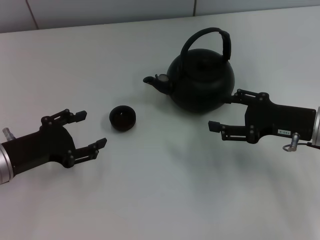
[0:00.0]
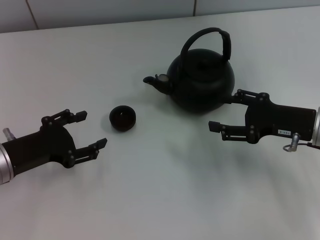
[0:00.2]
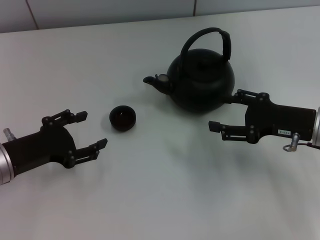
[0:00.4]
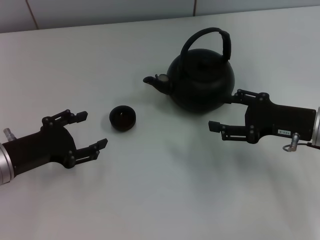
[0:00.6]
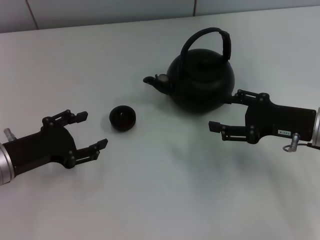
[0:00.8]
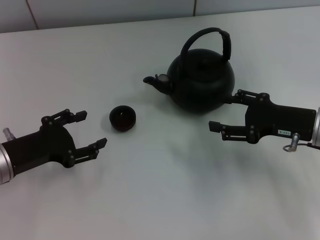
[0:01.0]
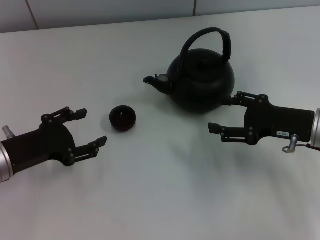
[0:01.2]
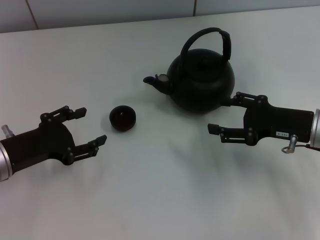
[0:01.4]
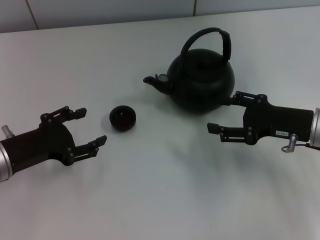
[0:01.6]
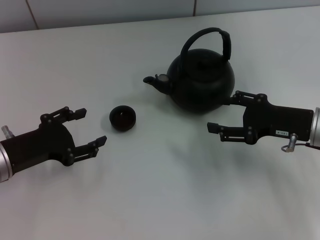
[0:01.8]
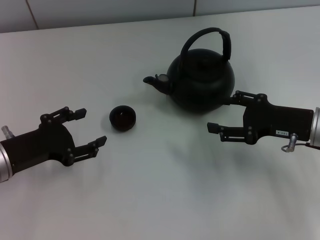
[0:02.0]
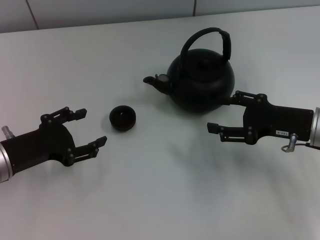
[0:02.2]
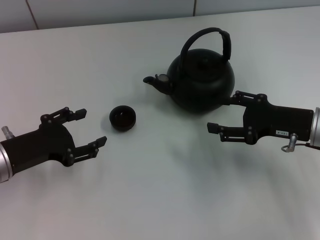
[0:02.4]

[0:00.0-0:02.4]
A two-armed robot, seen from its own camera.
Task of the whole recording: Grasp the handle of the teapot with one hand and pour tea into the teacup.
0.0 to 2.4 s: The two grippers keep their place.

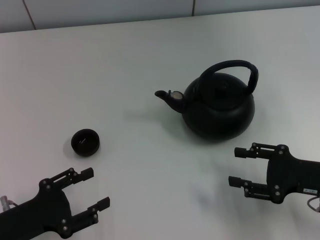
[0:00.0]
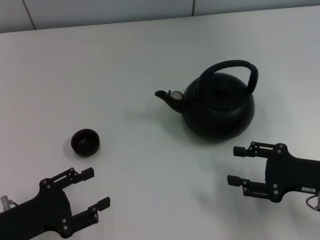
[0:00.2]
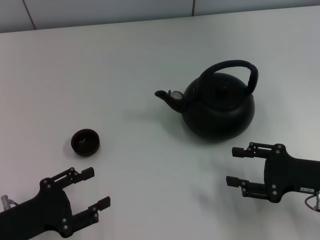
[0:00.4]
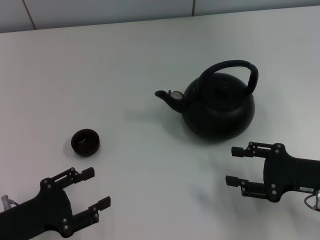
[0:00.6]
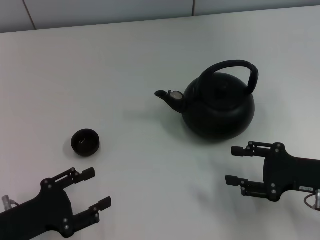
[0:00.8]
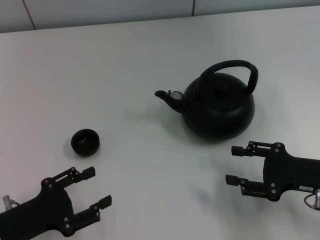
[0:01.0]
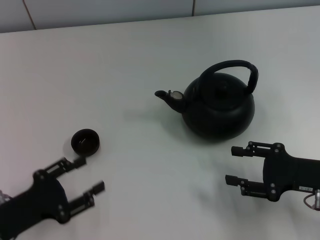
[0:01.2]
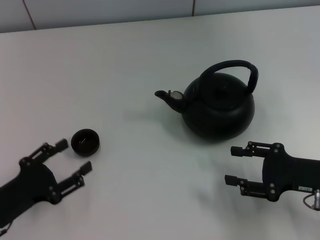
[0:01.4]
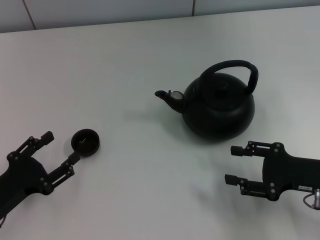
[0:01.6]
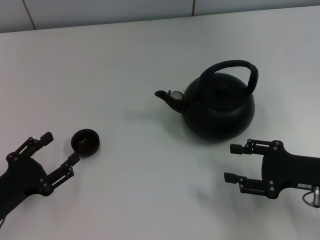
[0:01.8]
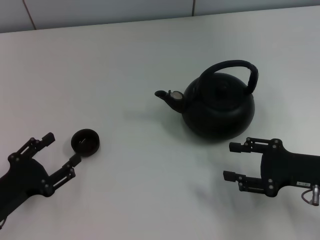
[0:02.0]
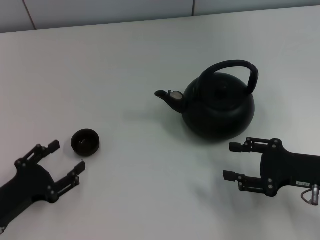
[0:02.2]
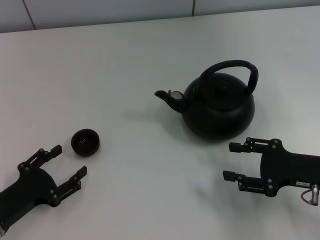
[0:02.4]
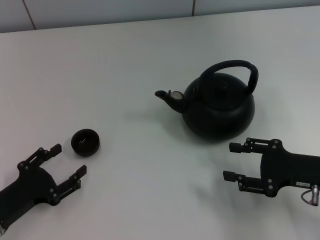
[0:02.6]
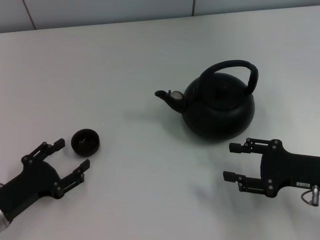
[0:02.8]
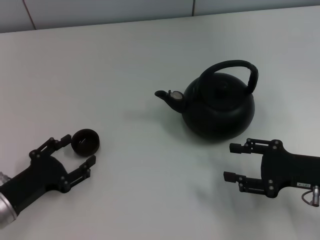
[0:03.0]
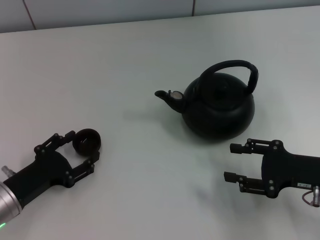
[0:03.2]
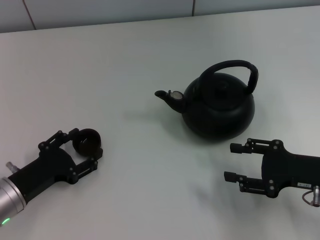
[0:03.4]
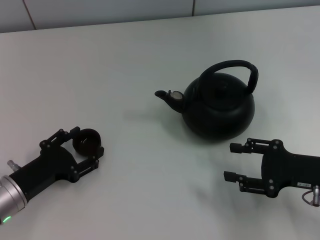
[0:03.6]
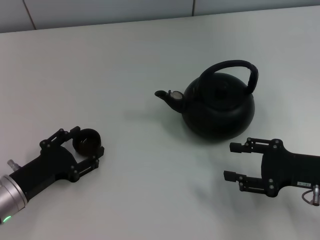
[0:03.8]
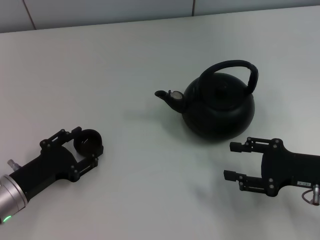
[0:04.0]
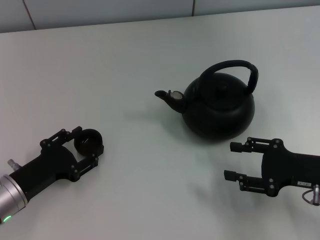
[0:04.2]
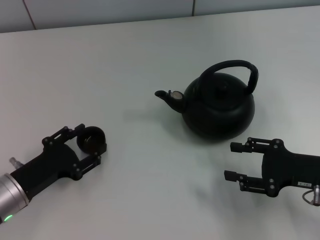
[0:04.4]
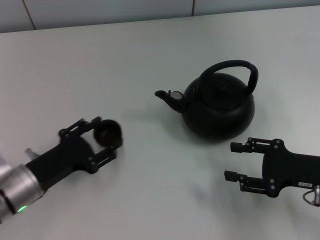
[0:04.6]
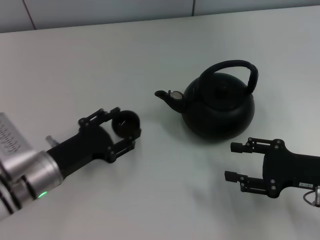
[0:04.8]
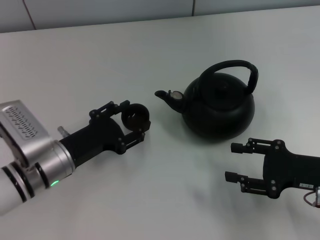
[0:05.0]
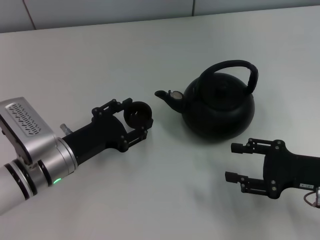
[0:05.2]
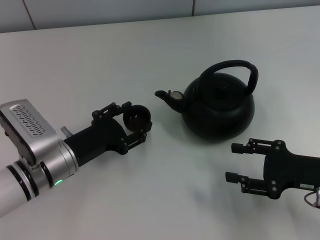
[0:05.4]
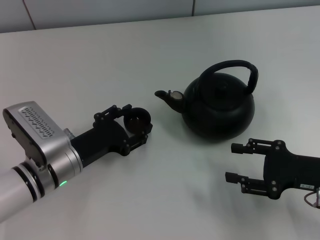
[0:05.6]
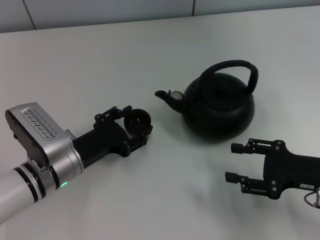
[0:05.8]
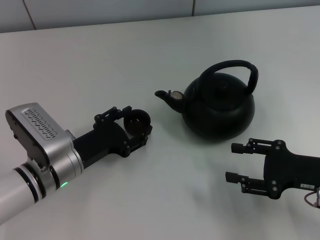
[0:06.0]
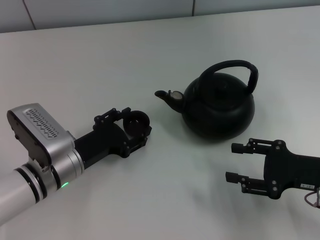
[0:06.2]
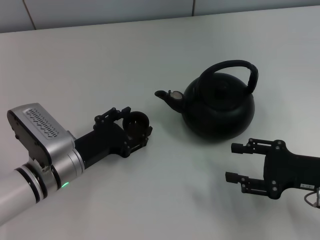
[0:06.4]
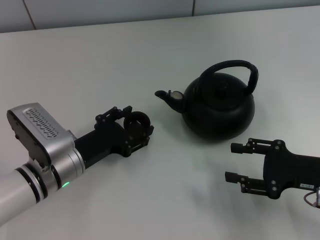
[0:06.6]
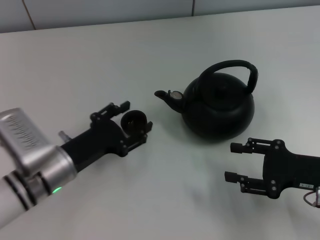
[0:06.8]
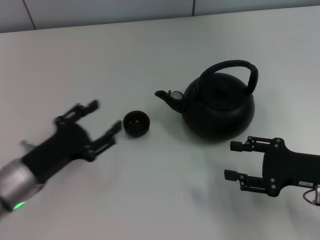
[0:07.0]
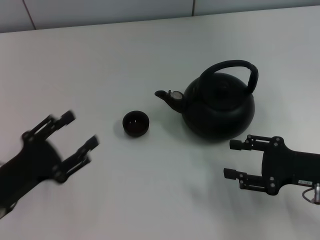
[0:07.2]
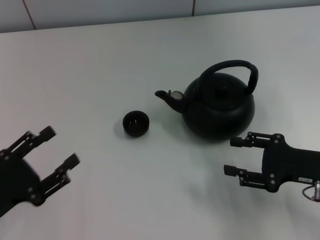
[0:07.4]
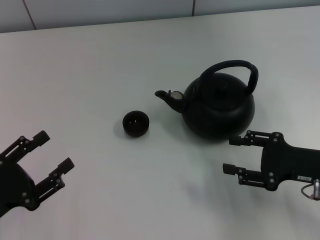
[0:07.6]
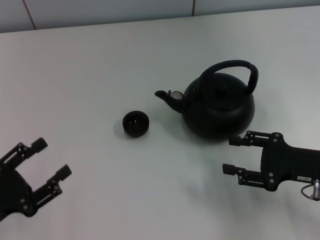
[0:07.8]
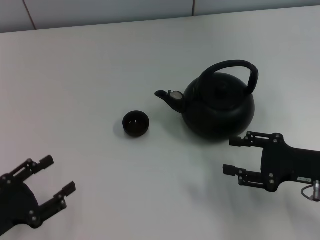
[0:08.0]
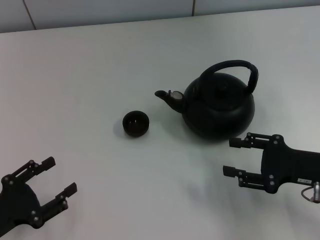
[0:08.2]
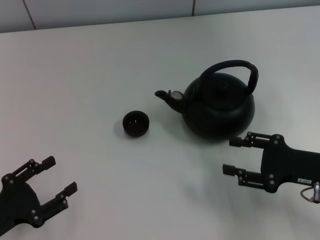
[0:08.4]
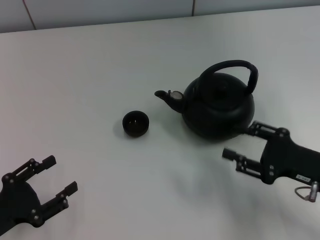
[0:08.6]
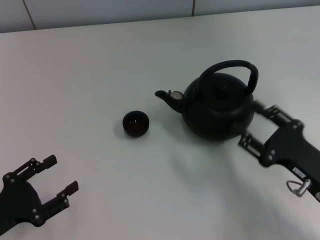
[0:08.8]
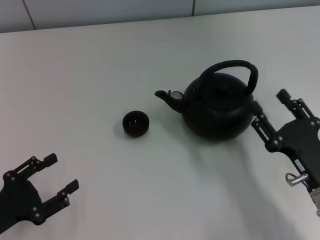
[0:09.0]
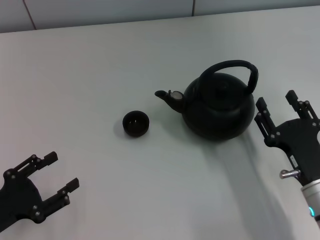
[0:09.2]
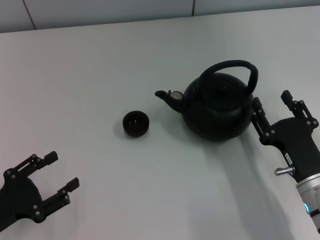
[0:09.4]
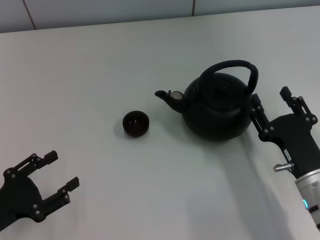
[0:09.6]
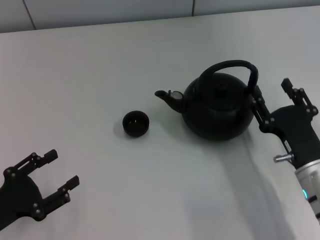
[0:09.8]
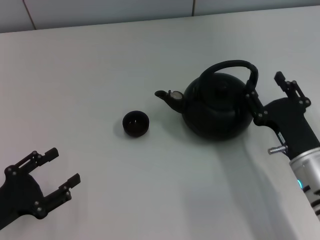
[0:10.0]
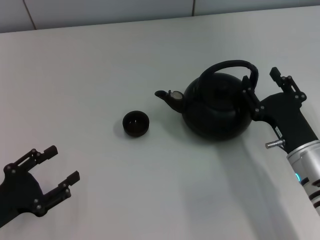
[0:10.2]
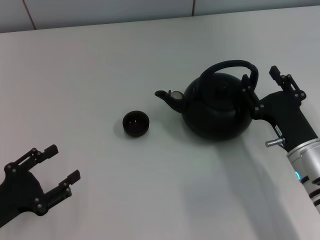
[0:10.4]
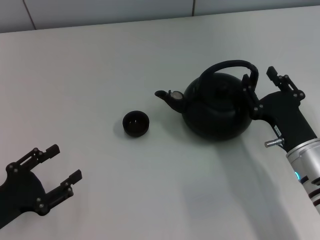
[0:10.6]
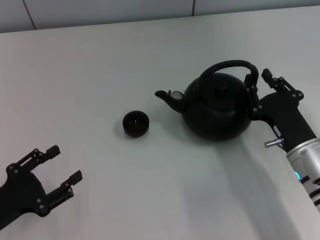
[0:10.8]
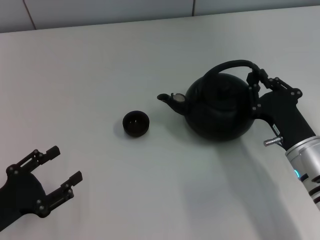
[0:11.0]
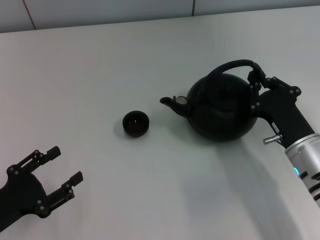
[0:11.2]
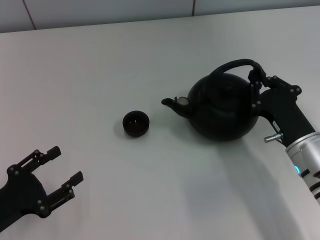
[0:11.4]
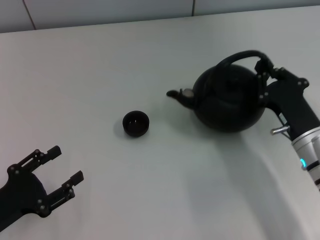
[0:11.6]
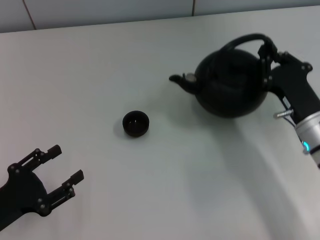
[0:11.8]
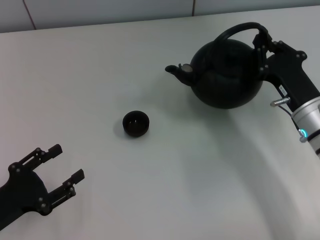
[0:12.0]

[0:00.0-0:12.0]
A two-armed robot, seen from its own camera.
Task of the whole recording: Grasp the handle of the teapot with one hand and pour tea into the teacup.
Step, 0.0 to 4.6 s: Pick up the teacup with the left gripper.
Step, 4.8 to 6.8 s: Place the teacup in the center of view with the left gripper.
Step, 7.2 to 11.6 s: Pick up the teapot with the right gripper.
1.6 to 4.4 s: There are only small adjustments of the grippers.
4.4 to 6.0 s: The left gripper heads to the right, covering some 10 cm.
6.0 to 7.6 s: The left gripper is displaced to the left and backward by roughly 15 cm.
7.6 to 9.0 s: The right gripper shifts some 10 cm to the left and backward.
9.0 to 10.4 s: The right gripper shifts roughly 5 cm forward.
10.4 to 12.0 s: The right gripper moves forward, some 5 cm, and closes up.

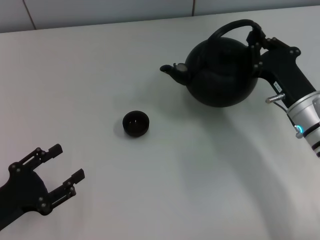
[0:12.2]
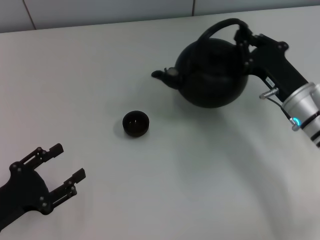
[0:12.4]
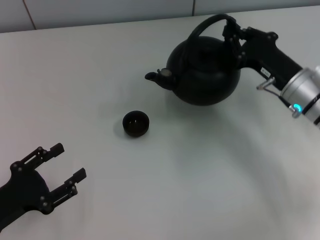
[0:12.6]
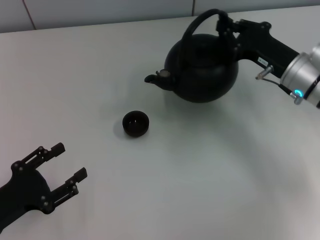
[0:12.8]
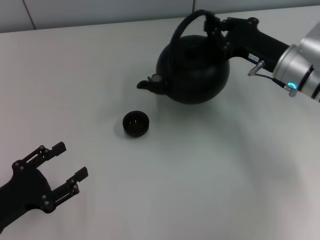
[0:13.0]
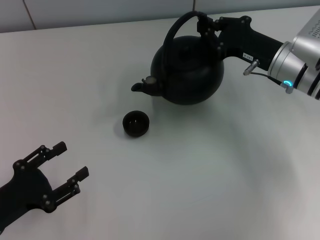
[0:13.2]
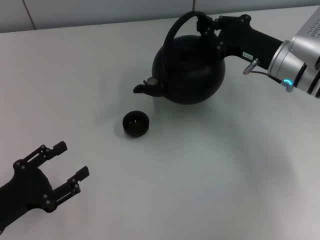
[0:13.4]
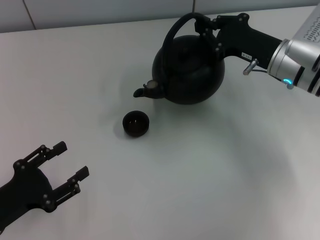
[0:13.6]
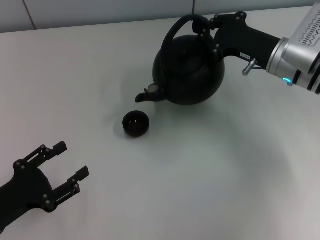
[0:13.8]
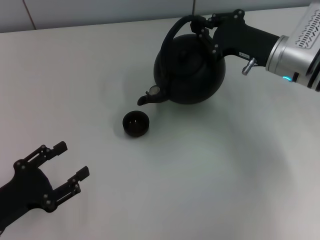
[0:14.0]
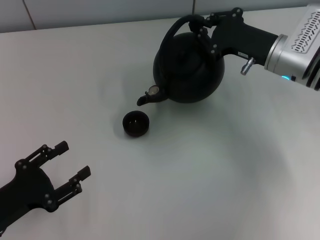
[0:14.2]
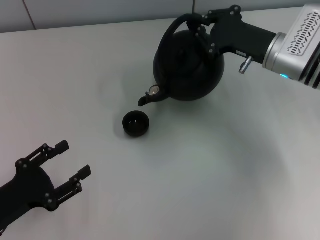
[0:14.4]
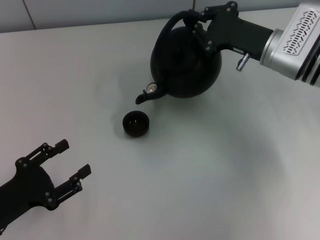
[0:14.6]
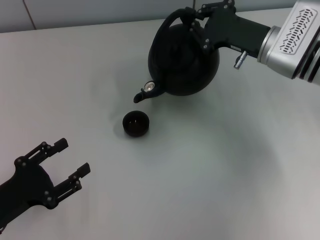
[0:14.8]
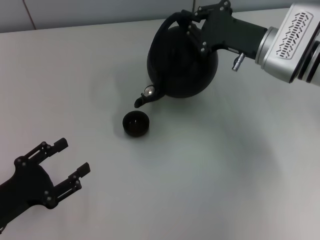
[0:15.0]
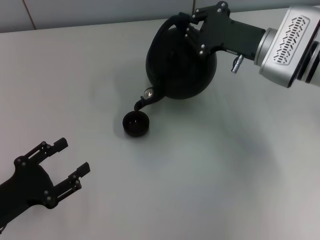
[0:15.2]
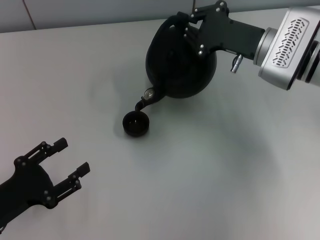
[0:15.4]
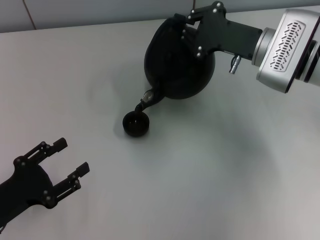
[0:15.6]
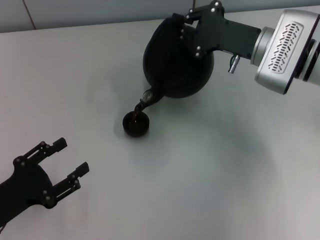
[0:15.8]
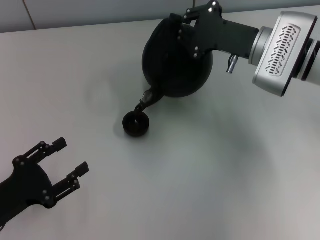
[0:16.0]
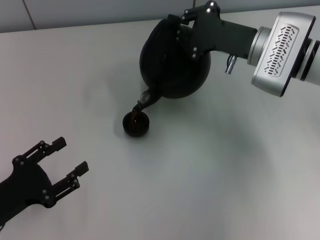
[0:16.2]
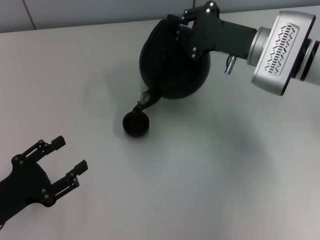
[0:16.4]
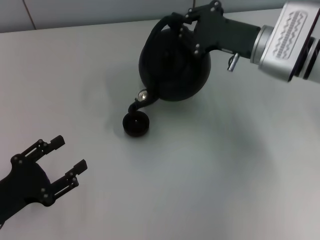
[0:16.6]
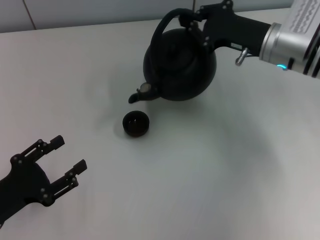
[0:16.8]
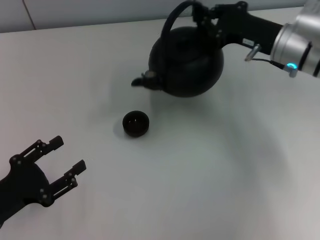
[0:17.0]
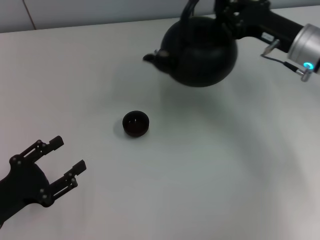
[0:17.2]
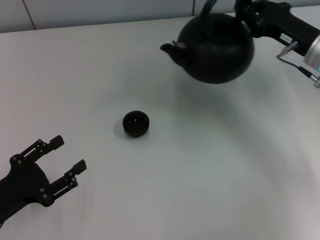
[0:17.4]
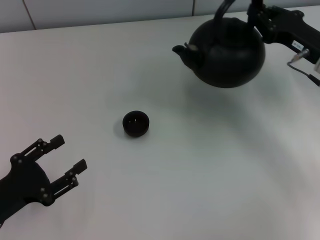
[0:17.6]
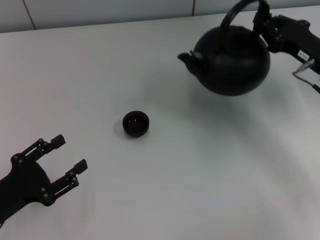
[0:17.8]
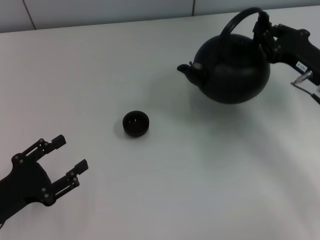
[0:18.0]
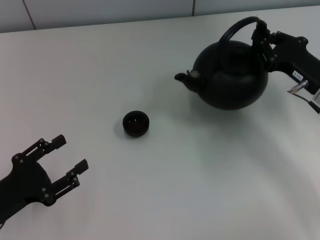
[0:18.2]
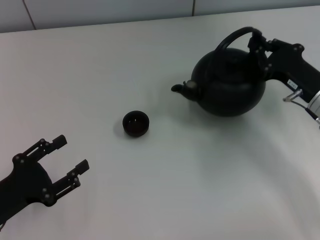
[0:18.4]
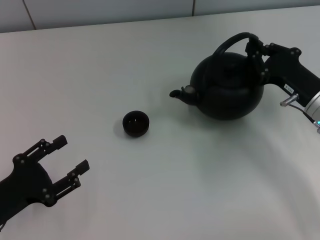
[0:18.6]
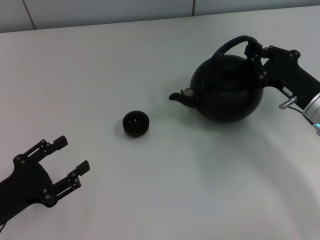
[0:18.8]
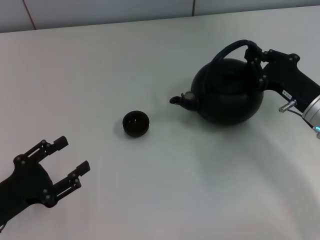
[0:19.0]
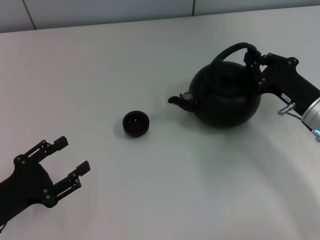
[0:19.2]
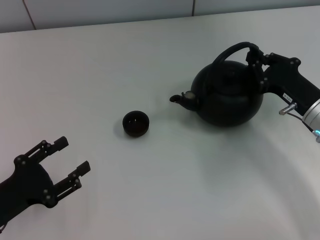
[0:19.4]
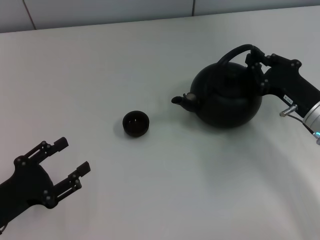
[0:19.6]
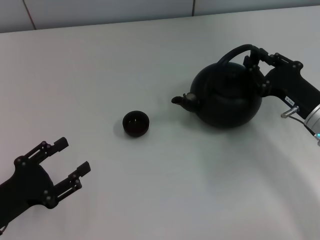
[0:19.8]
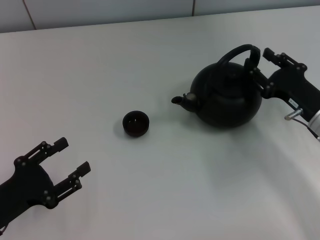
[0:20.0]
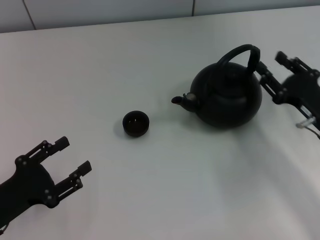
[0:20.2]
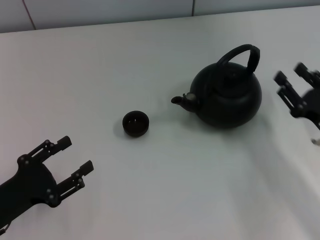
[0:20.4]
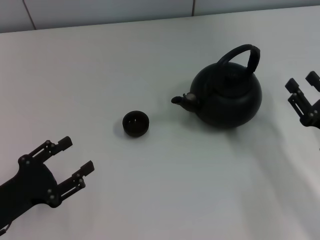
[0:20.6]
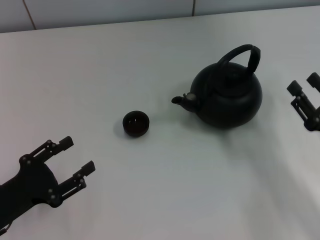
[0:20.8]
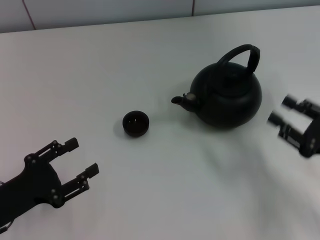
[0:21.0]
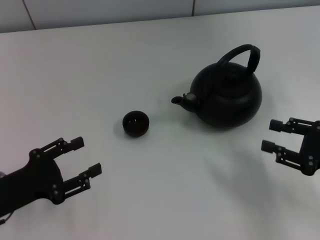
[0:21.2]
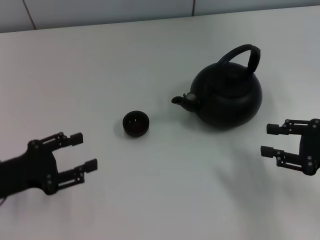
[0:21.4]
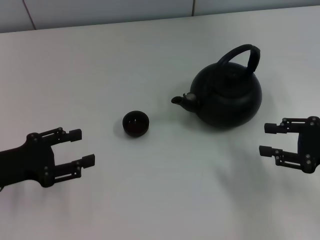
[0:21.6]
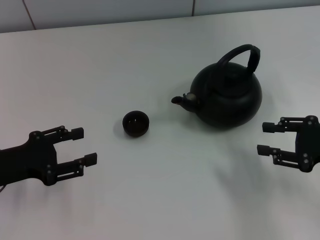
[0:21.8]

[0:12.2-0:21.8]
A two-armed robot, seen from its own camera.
Task of the whole recording: Grasp the handle of the teapot with one hand and pour tea into the teacup.
Step, 17.2 to 19.8 s: Put down the teapot with the right gripper.
12.2 to 13.8 s: The right gripper shifts roughly 10 cm forward and upward.
17.0 to 18.6 s: The right gripper moves backward and downward, approximately 10 cm.
18.6 to 20.2 s: The right gripper opens its fingers.
20.2 to 21.8 s: The right gripper ends up some 5 cm from where it was, while the left gripper moves forward, some 5 cm.
